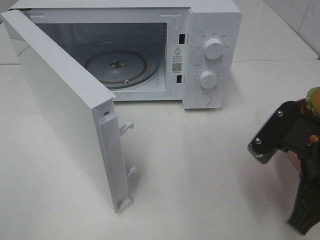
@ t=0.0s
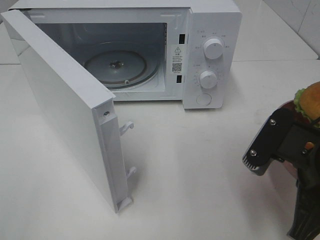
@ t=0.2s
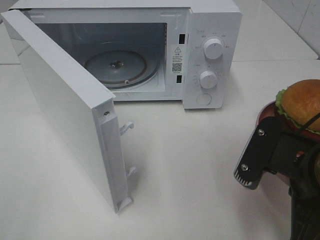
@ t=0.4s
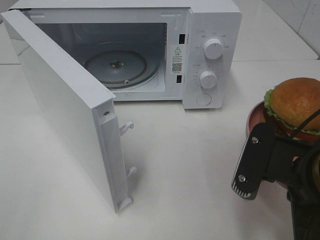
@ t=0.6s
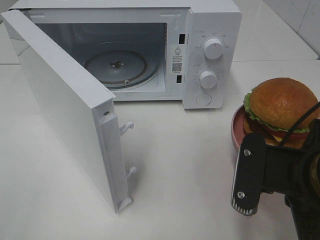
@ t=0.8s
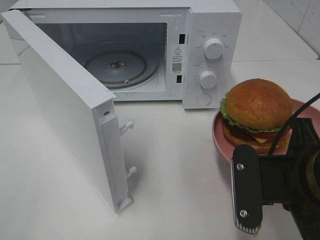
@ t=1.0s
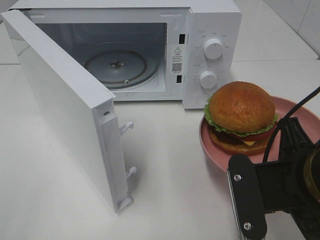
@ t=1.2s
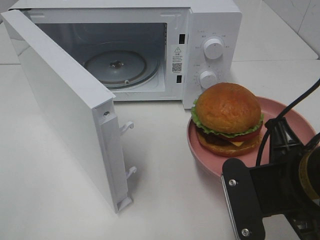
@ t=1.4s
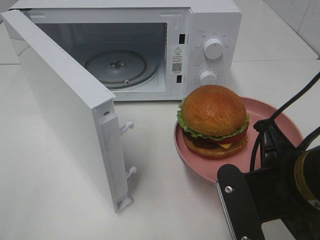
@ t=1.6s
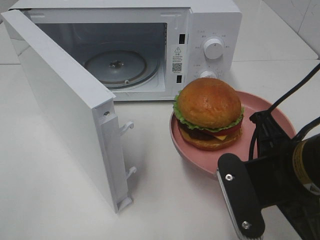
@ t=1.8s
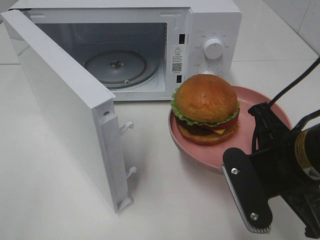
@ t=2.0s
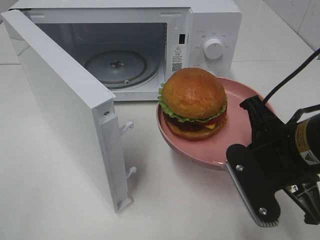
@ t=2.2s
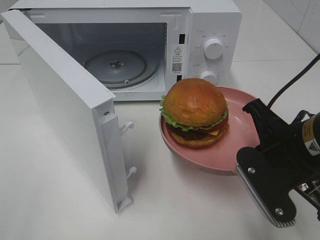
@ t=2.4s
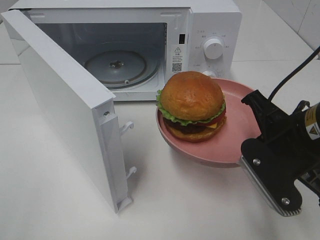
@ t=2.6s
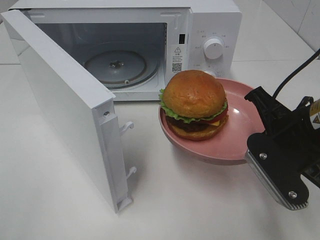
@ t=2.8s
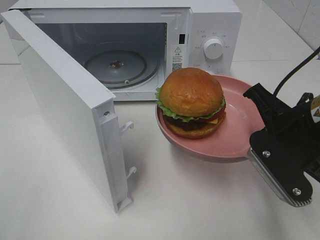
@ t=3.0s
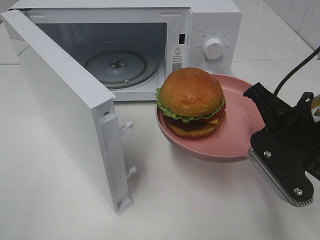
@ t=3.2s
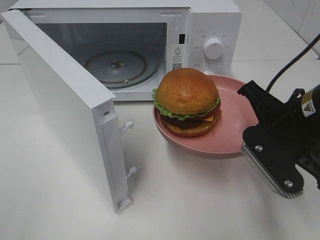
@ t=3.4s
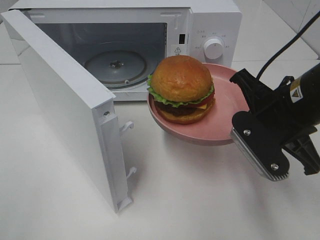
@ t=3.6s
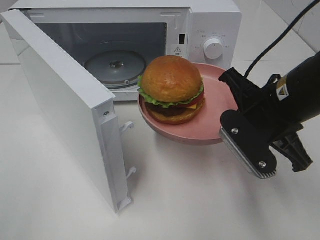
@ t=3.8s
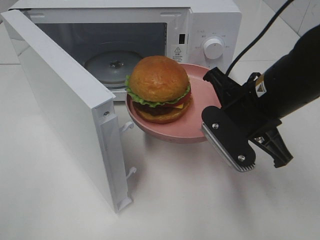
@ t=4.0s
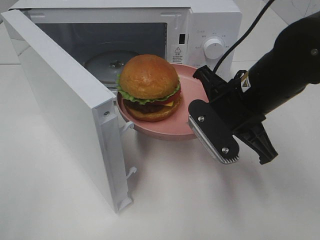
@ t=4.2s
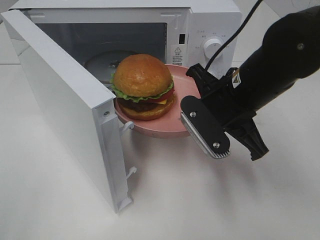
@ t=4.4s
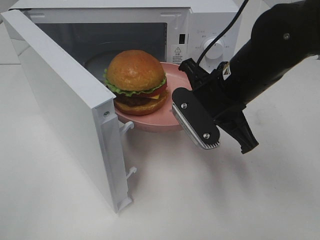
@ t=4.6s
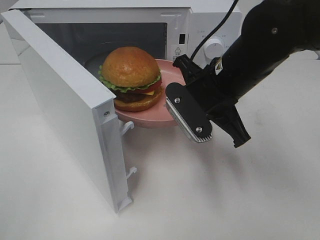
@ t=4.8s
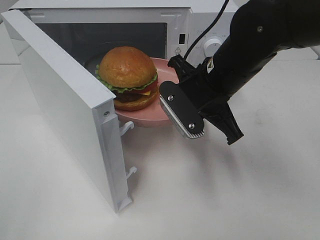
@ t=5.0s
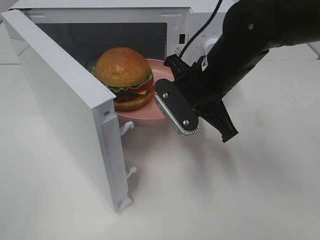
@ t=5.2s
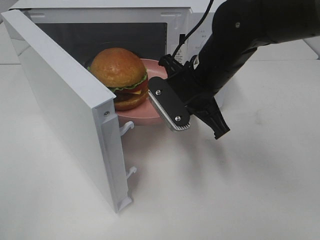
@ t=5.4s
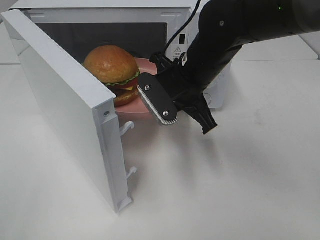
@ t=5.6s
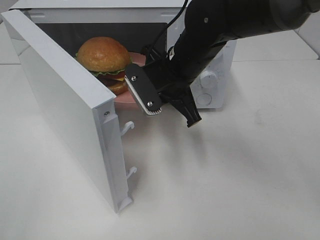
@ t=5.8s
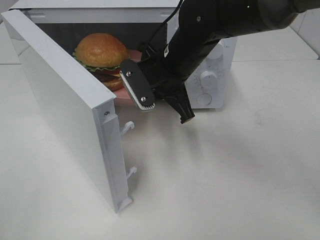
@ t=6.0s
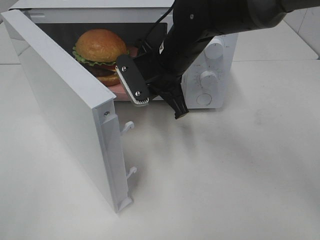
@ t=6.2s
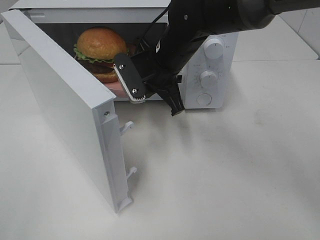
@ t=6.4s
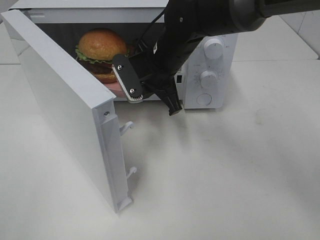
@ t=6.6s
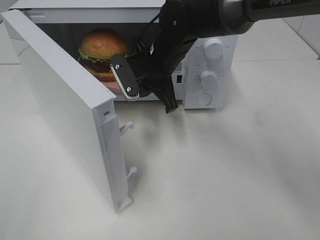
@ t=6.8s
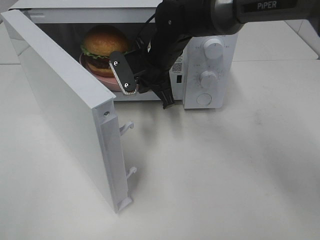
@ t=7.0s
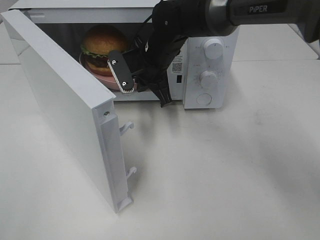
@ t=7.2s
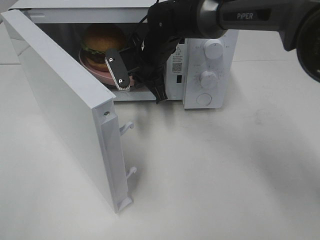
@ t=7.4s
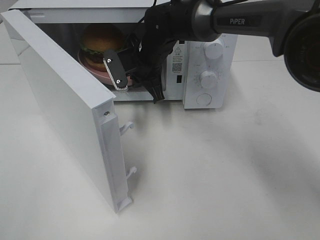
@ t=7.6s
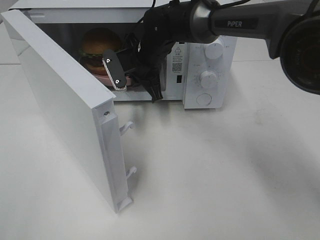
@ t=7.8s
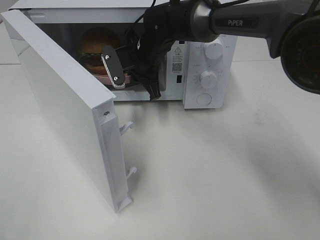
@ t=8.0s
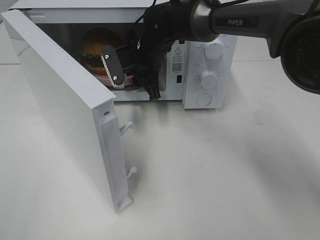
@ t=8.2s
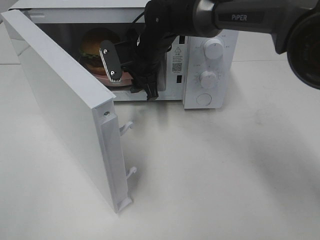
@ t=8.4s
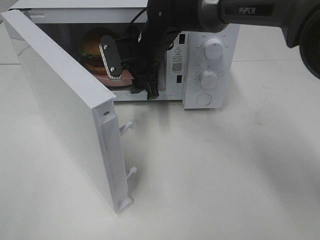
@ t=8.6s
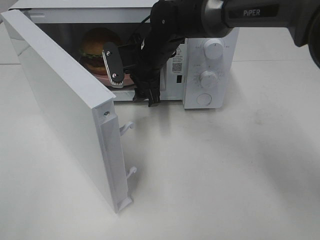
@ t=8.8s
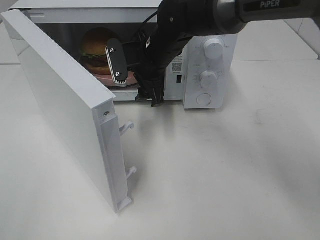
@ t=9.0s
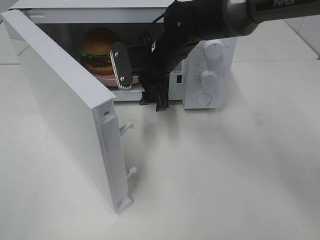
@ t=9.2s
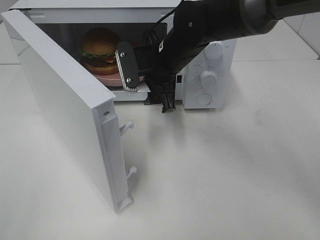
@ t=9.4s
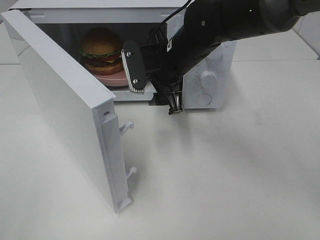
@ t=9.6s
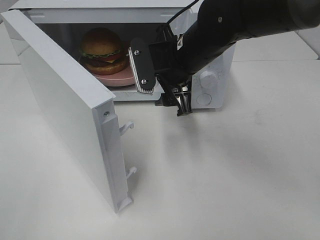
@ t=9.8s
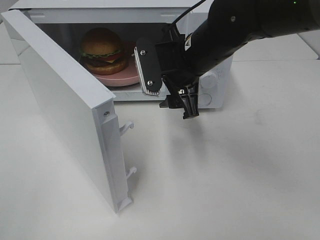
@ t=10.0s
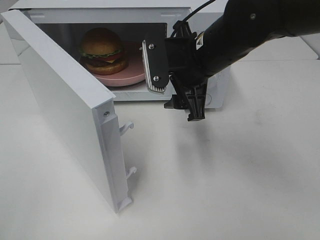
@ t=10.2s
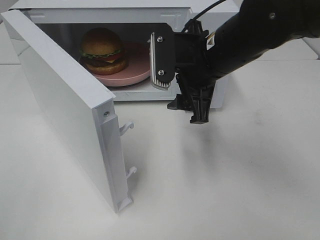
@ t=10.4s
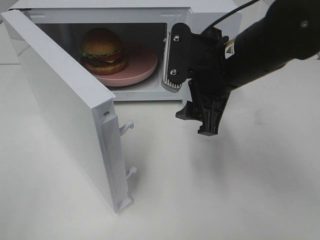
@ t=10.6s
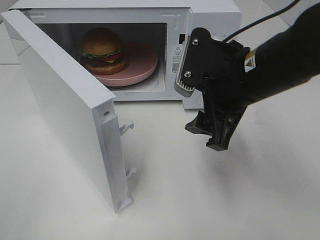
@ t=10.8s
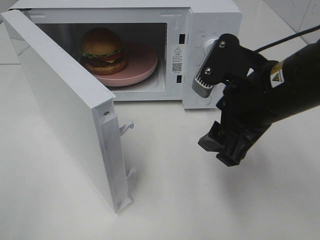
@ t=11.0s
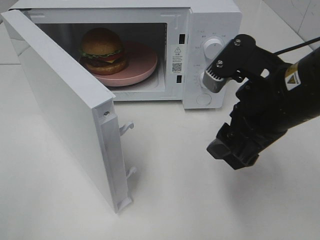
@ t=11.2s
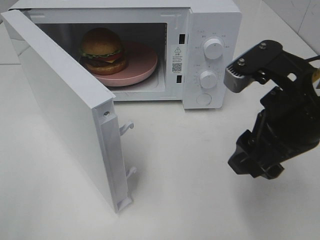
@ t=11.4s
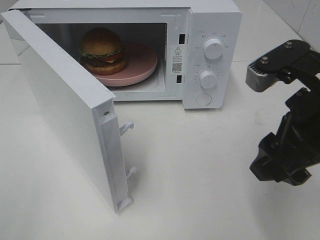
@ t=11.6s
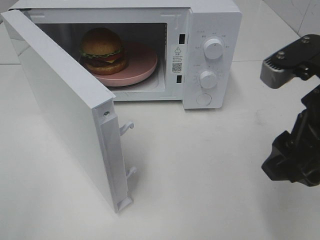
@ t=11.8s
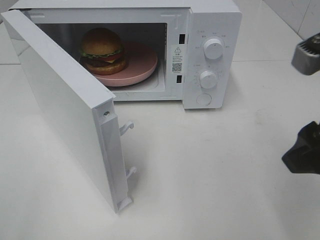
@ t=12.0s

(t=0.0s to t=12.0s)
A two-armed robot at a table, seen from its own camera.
Task of the whole recording: Heat the burger.
Step, t=0.0s - t=8.0s: Right hand: place the plate in the microwave.
t=0.0s - t=1.6s: The right gripper changes place by approximately 5 cm.
t=1.6s - t=3.0s: The right gripper shifts approximately 5 cm forward.
t=3.0s - t=4.4s: The right gripper moves to the left and forward, some 10 cm.
t=4.4s - t=6.0s: The right gripper is displaced forward and to the left by about 10 cm.
t=6.0s - t=7.6s: The right gripper goes some 10 cm forward.
t=7.6s - t=9.0s: The right gripper opens its fingers.
t=9.0s - t=10.4s: The right gripper heads backward, to the right and upward, covering approximately 15 cm.
t=10.4s - t=12.0s: The right gripper heads backward and to the right, covering roughly 20 cm.

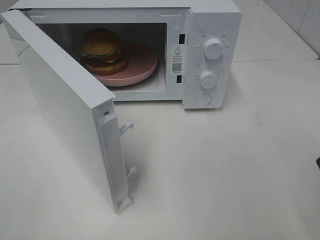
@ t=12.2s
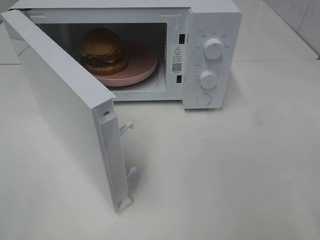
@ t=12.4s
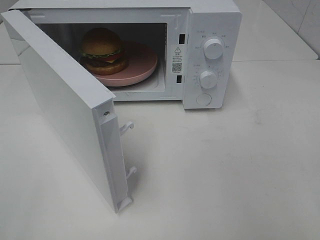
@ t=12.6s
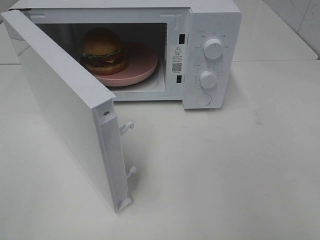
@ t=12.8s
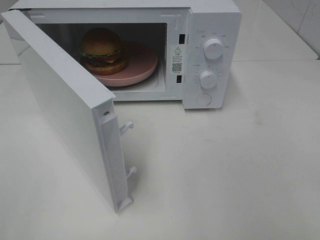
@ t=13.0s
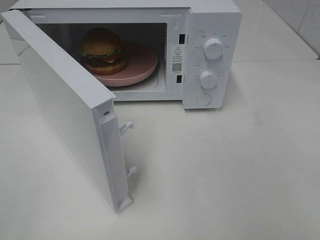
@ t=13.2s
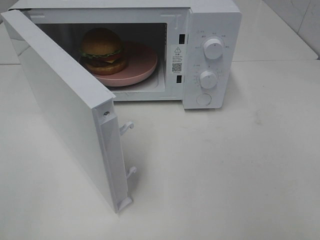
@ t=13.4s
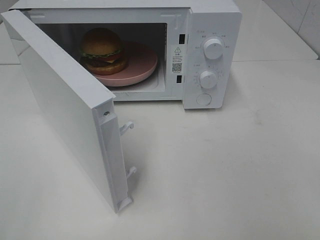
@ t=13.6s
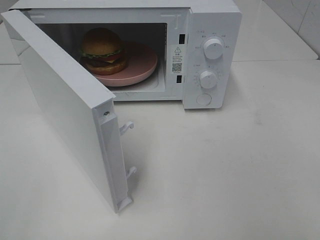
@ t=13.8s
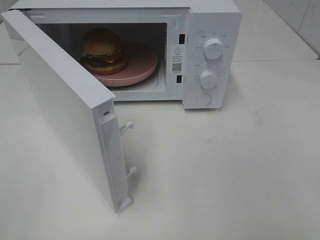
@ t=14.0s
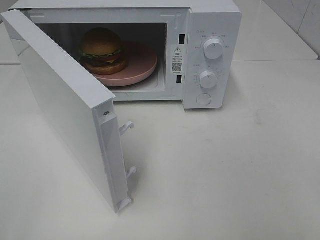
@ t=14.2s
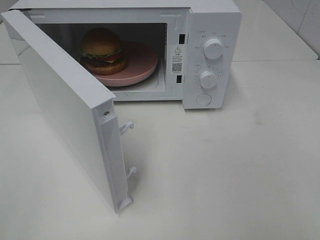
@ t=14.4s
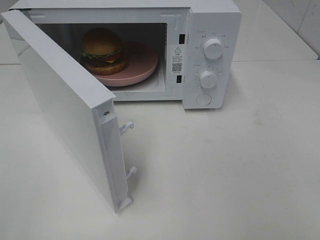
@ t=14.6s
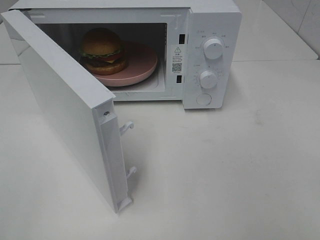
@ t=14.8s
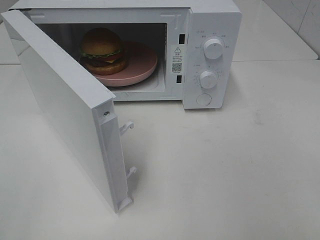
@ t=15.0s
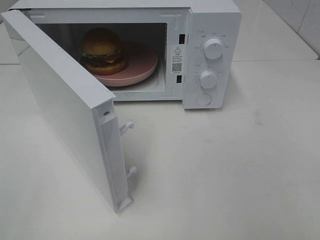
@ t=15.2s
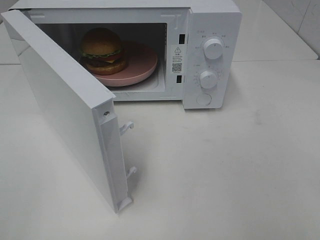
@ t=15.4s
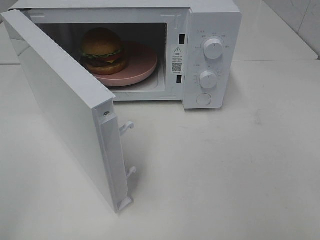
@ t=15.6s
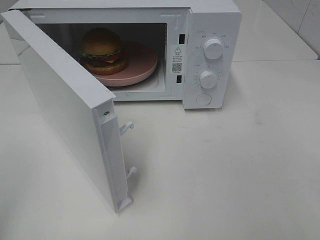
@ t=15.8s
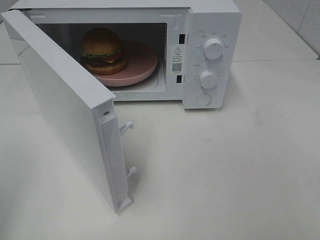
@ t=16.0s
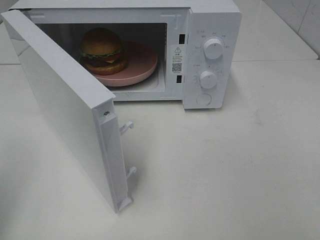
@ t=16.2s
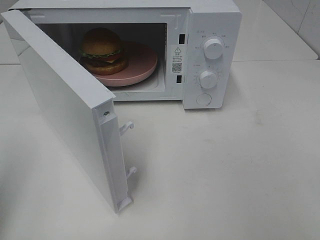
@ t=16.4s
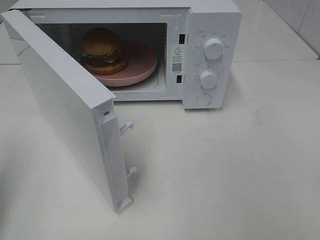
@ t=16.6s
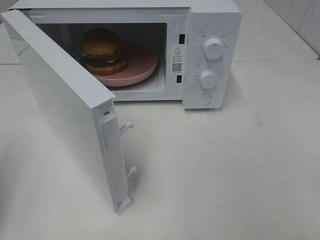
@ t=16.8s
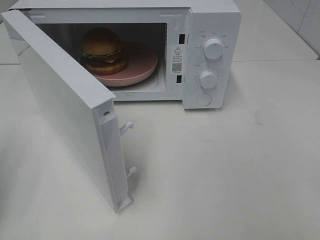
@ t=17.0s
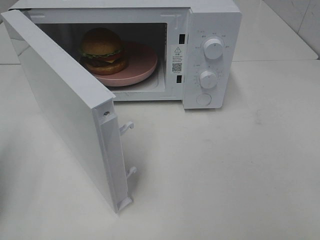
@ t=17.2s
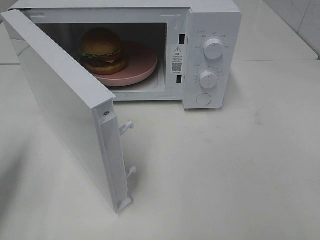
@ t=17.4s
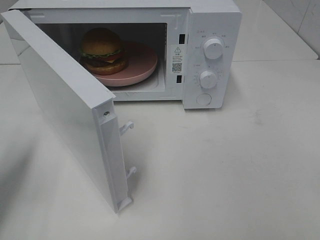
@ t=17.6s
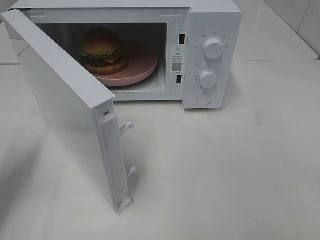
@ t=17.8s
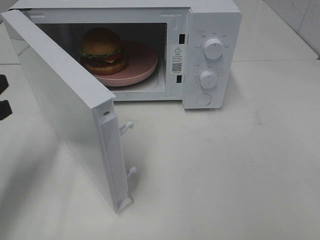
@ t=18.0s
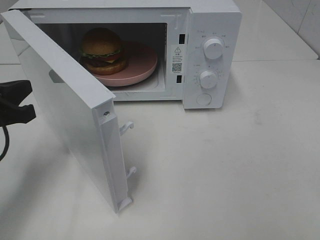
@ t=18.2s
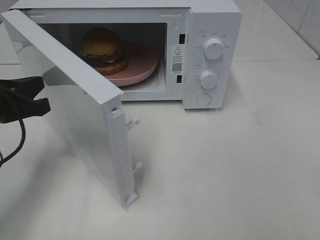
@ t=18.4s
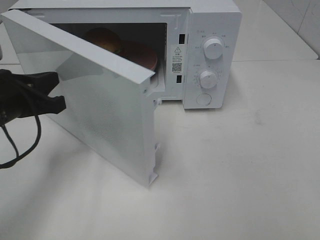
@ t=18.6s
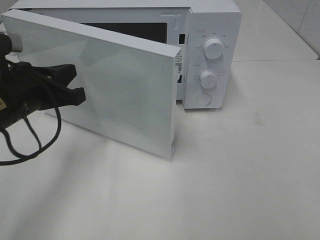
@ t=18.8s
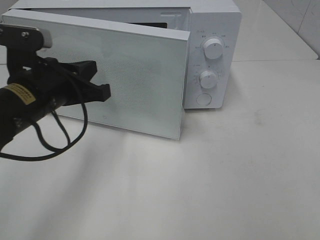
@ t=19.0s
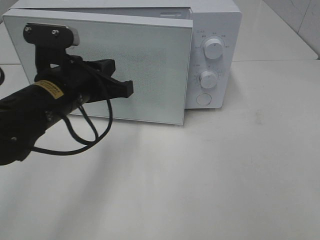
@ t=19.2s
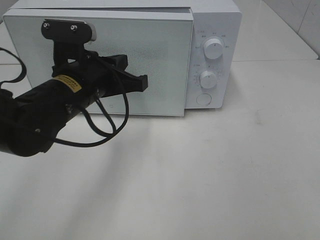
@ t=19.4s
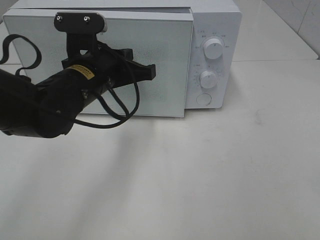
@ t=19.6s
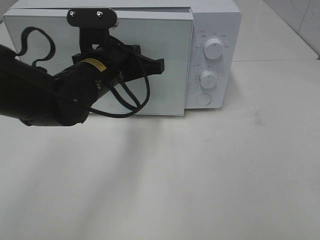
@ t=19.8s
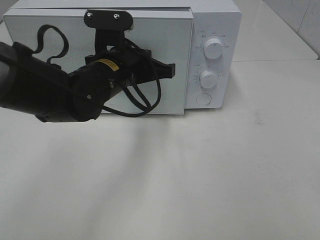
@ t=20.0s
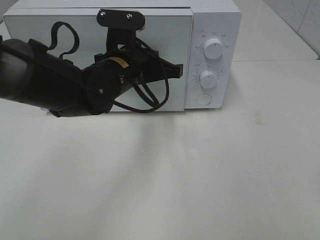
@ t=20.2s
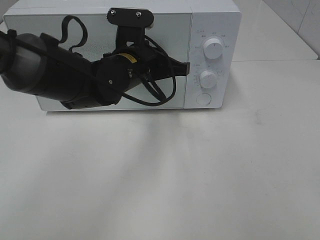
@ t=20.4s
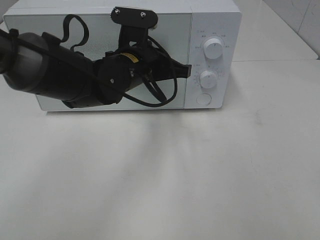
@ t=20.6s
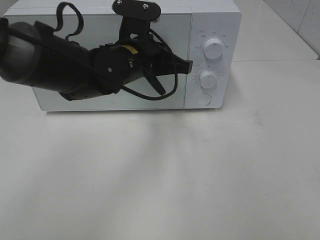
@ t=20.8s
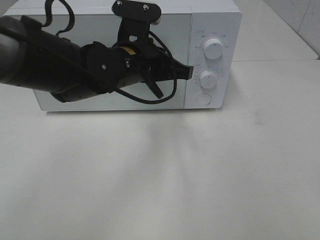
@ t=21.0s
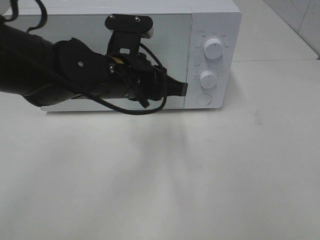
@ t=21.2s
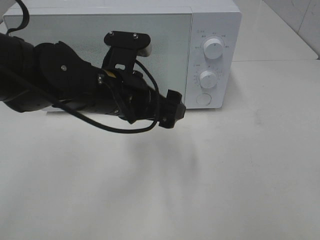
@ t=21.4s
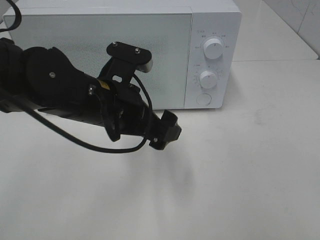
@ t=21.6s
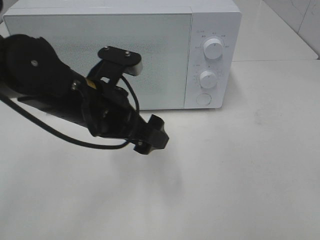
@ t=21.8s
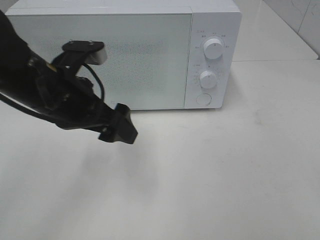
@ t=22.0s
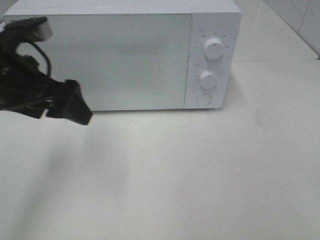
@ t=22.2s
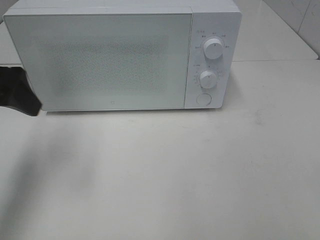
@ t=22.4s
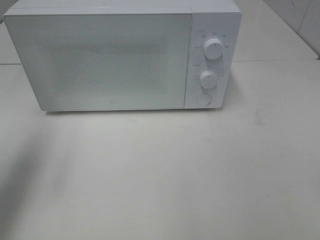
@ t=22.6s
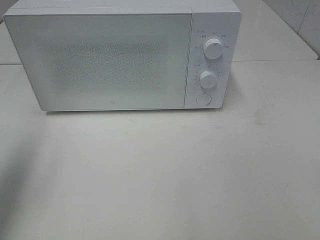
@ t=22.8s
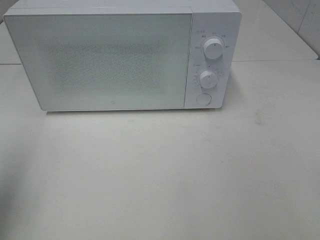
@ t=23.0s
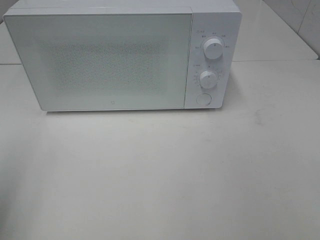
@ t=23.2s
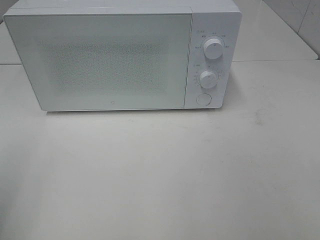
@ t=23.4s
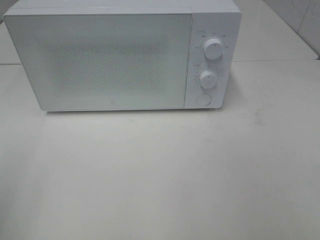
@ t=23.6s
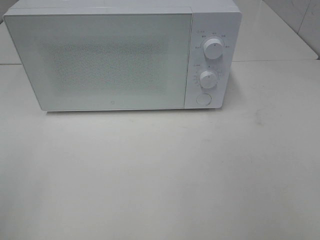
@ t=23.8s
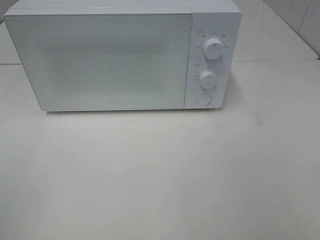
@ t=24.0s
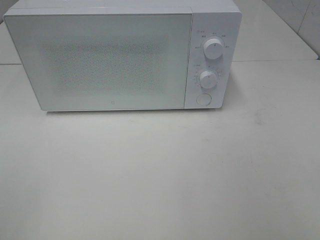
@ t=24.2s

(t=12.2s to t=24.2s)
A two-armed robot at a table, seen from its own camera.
Task of the whole recording: Heat the burger.
Step, t=12.2s - t=20.8s: Left hand: close the microwave door.
t=13.8s - t=15.2s: Neither gripper changes place.
t=15.2s - t=16.6s: The left gripper travels forward by about 15 cm, and closes its fingers.
t=16.6s - t=18.2s: The left gripper shifts about 15 cm forward, downward and to the right.
t=18.2s - t=19.8s: The left gripper shifts about 20 cm to the right and forward.
t=21.2s - t=22.6s: The left gripper is displaced to the left and upward by roughly 25 cm, and opens up.
t=22.6s - t=24.2s: The left gripper goes some 20 cm backward.
